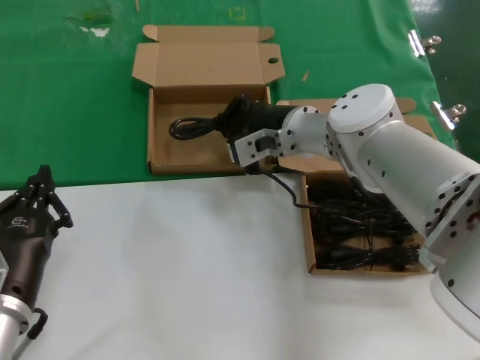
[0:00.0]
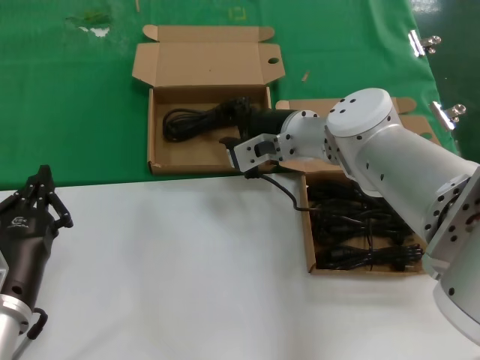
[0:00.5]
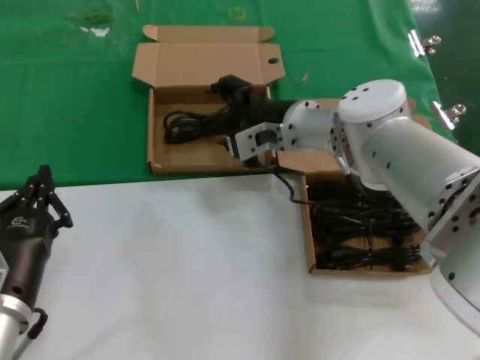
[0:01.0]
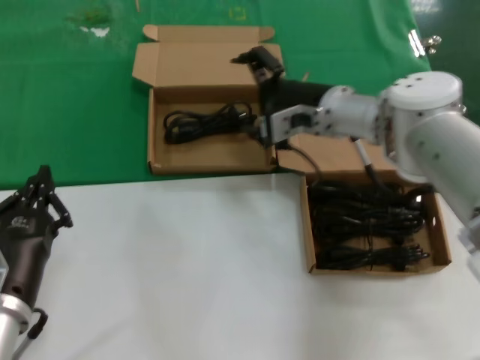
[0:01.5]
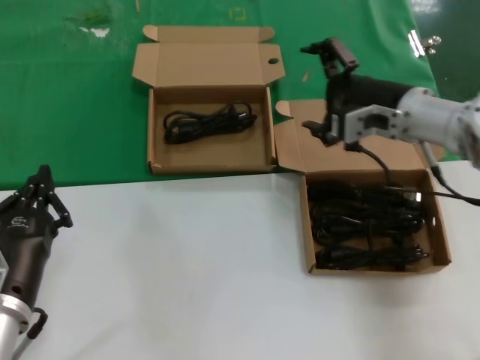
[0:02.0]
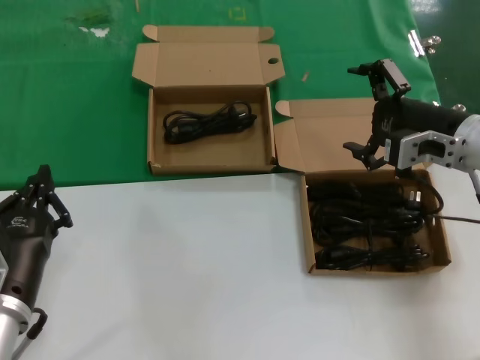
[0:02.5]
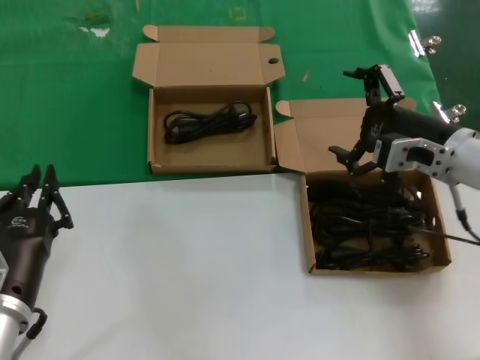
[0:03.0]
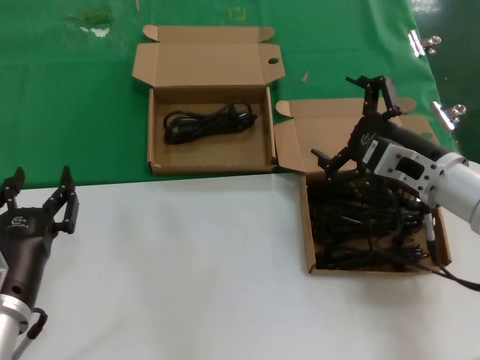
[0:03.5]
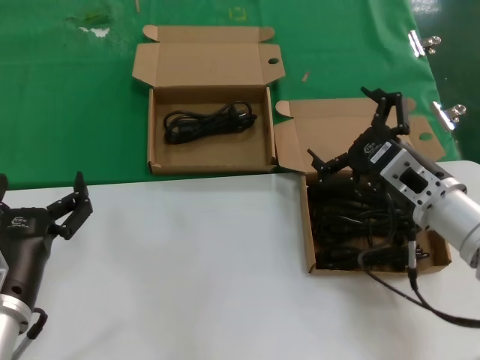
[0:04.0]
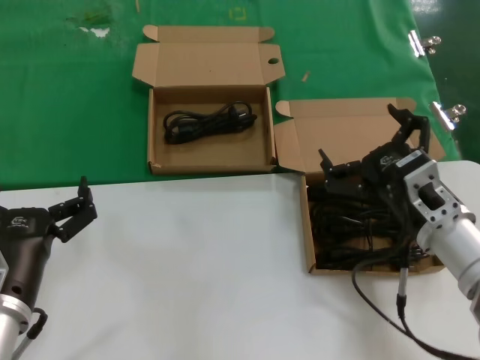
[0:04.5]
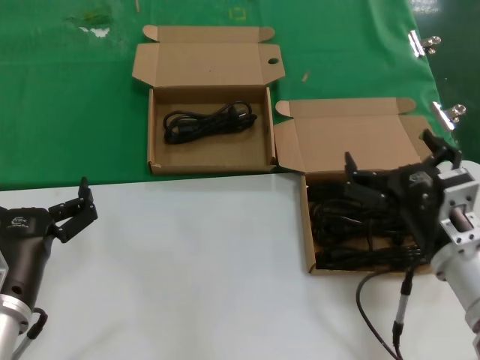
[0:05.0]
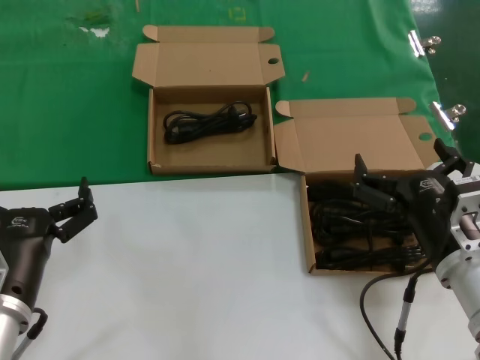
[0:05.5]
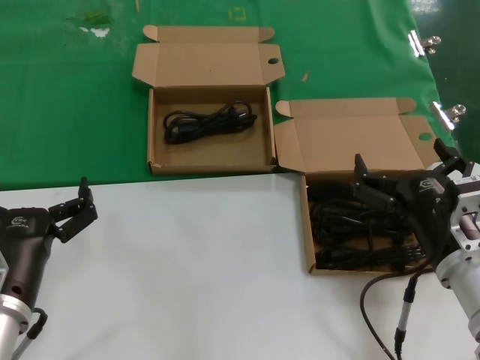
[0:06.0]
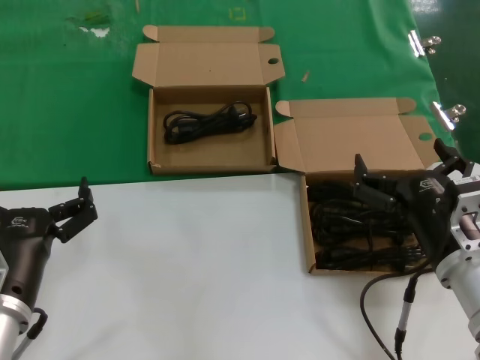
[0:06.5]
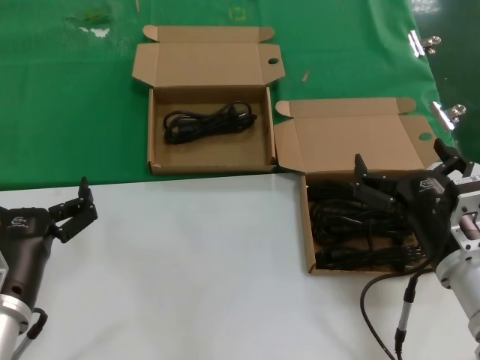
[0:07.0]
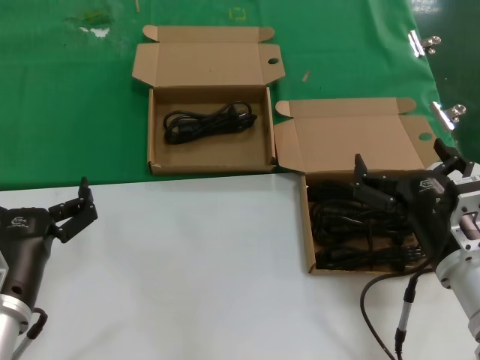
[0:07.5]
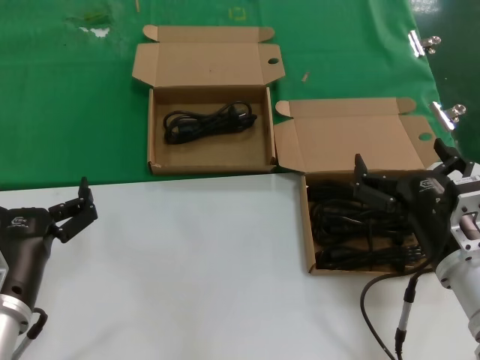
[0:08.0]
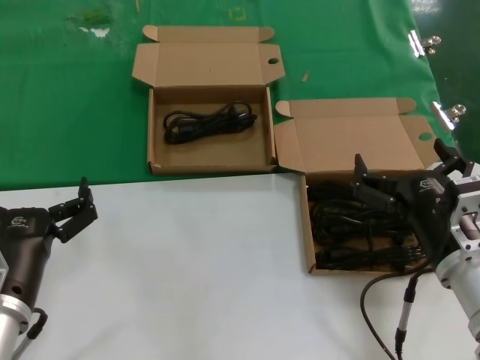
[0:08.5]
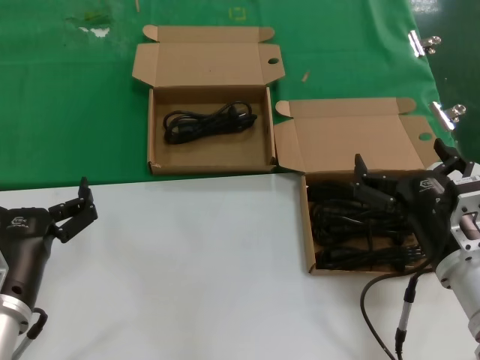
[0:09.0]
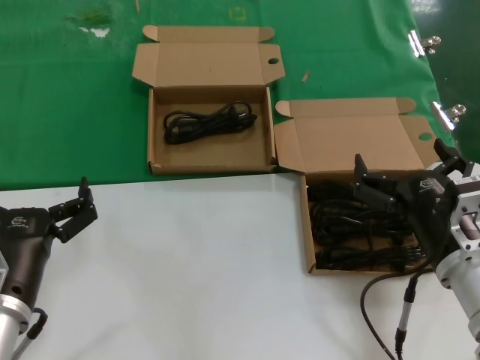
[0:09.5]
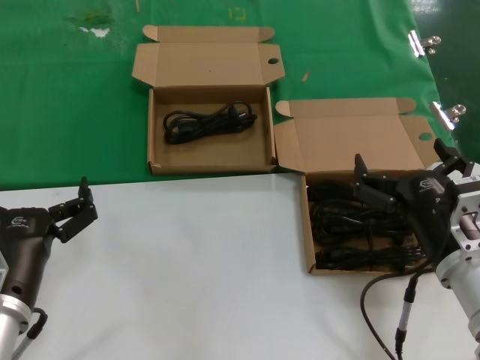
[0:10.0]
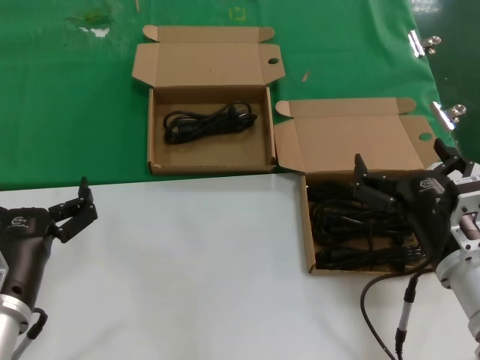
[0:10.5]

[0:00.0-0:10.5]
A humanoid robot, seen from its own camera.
Task of the whole recording: take the parts from the box containing them and put them into an empty box.
0:00.0 to 0:02.0: The right hand shifts roughly 15 cm to the right.
0:02.0 to 0:04.0: The right hand goes approximately 15 cm backward and downward.
0:04.0 to 0:06.5: The right hand moves backward, roughly 10 cm.
0:06.5 to 0:10.5: Both hands stay put.
